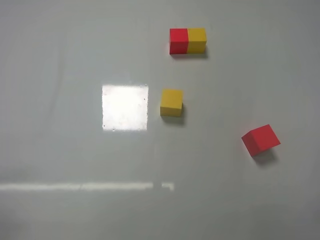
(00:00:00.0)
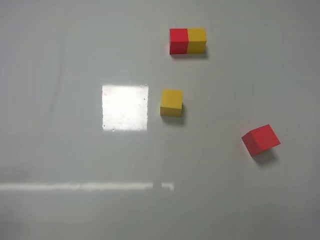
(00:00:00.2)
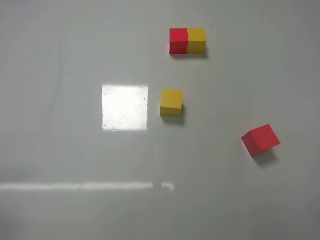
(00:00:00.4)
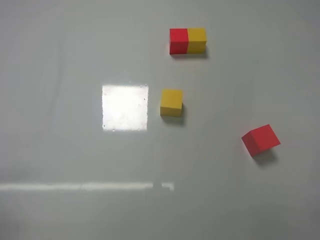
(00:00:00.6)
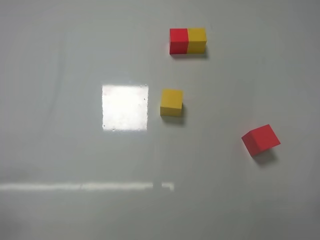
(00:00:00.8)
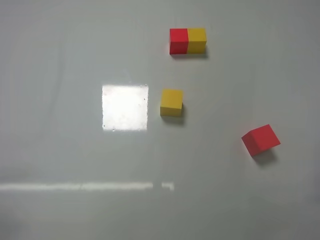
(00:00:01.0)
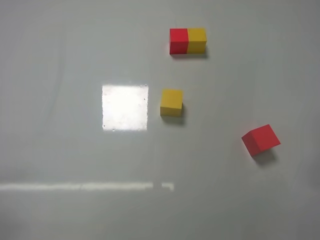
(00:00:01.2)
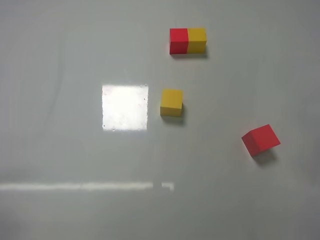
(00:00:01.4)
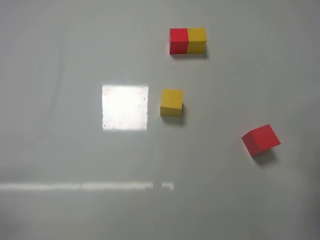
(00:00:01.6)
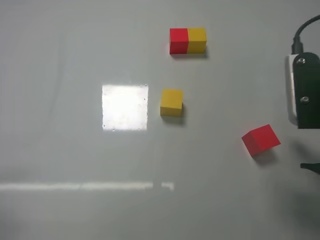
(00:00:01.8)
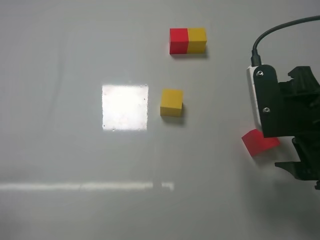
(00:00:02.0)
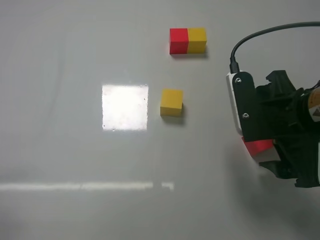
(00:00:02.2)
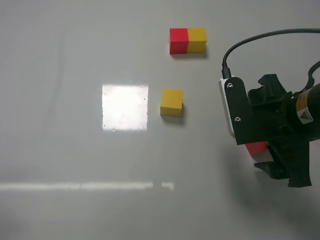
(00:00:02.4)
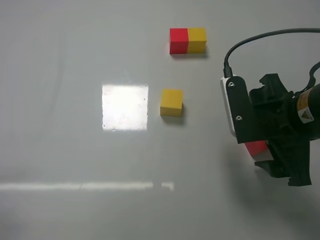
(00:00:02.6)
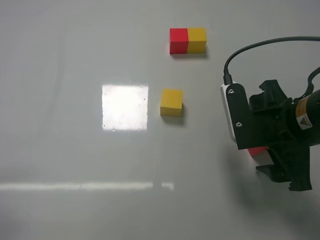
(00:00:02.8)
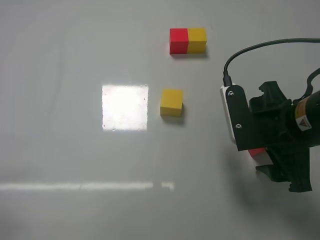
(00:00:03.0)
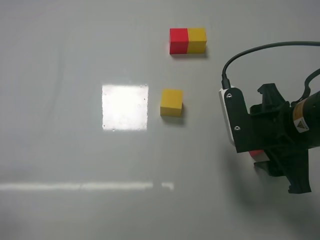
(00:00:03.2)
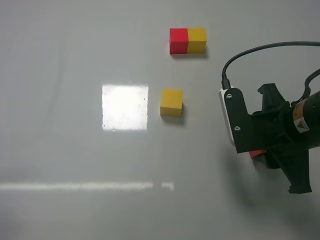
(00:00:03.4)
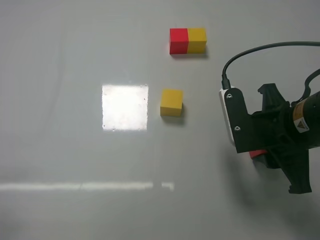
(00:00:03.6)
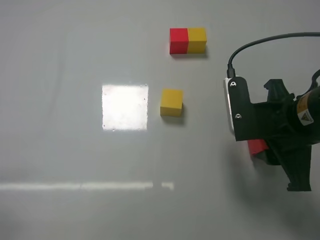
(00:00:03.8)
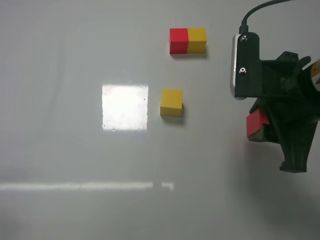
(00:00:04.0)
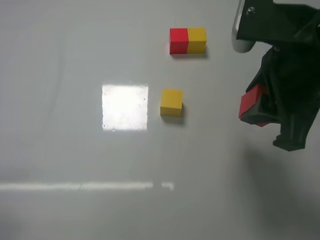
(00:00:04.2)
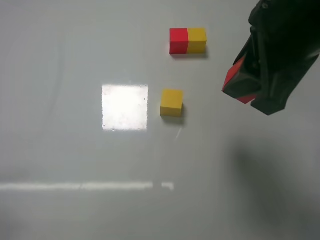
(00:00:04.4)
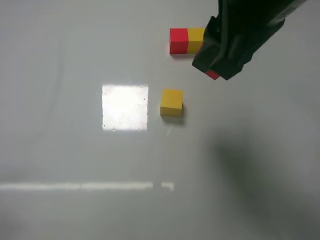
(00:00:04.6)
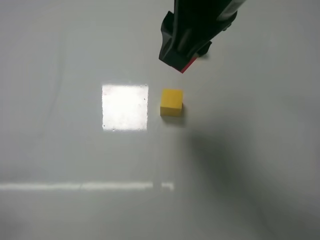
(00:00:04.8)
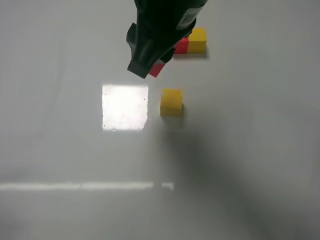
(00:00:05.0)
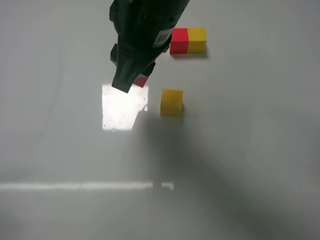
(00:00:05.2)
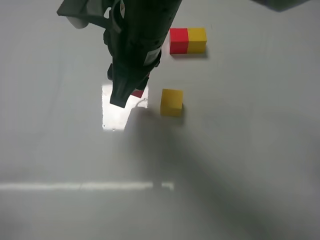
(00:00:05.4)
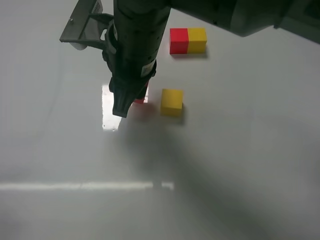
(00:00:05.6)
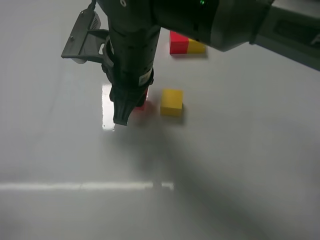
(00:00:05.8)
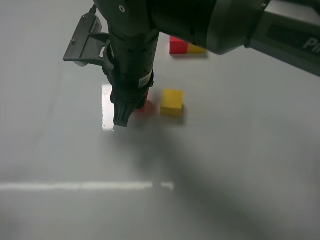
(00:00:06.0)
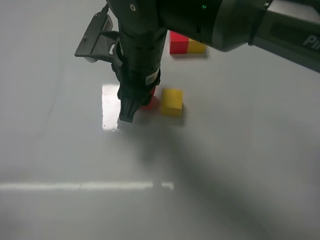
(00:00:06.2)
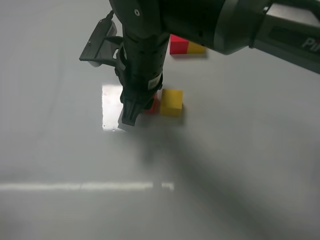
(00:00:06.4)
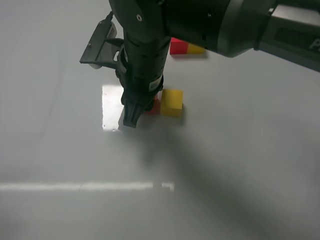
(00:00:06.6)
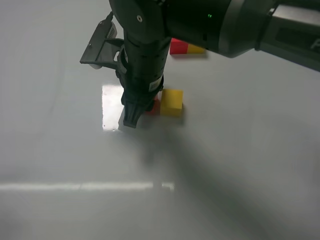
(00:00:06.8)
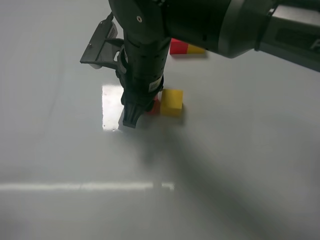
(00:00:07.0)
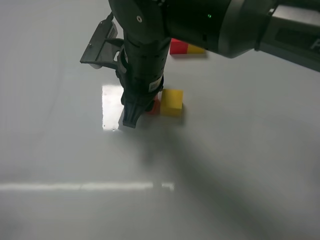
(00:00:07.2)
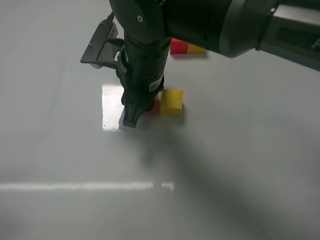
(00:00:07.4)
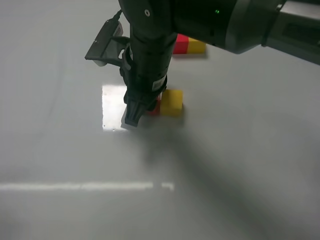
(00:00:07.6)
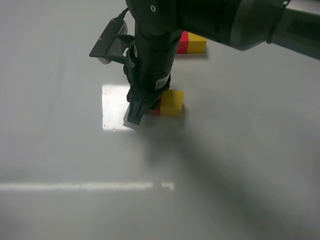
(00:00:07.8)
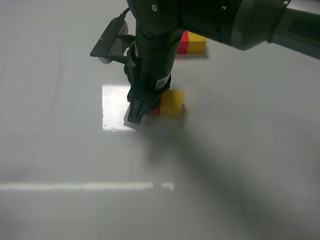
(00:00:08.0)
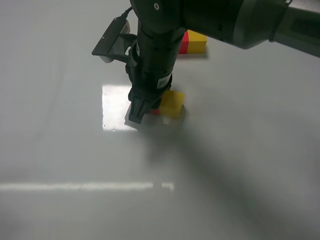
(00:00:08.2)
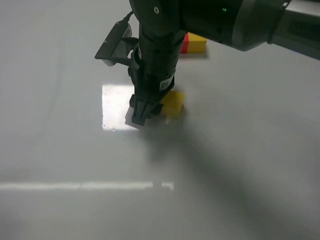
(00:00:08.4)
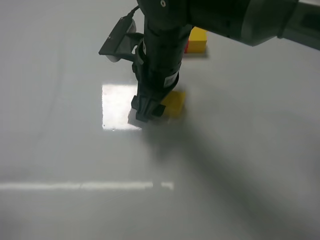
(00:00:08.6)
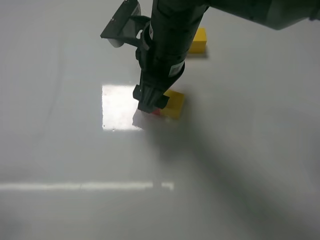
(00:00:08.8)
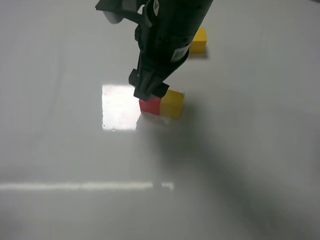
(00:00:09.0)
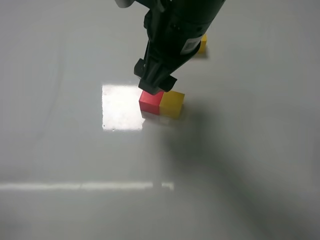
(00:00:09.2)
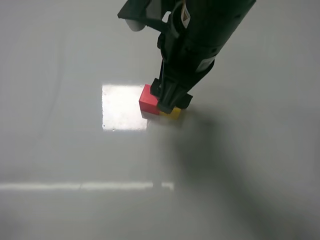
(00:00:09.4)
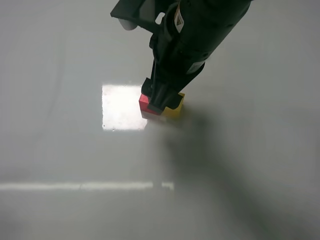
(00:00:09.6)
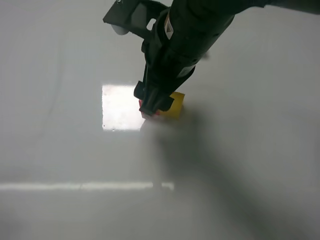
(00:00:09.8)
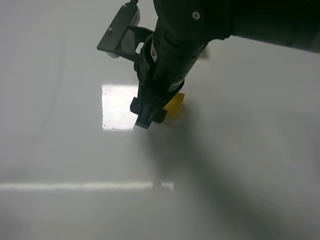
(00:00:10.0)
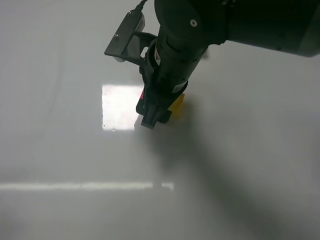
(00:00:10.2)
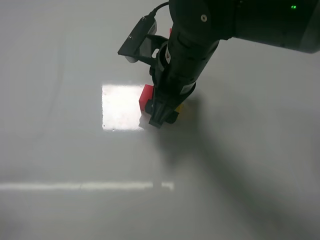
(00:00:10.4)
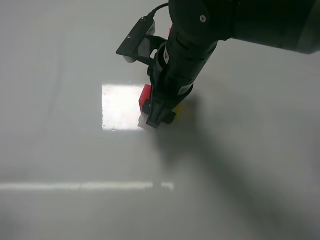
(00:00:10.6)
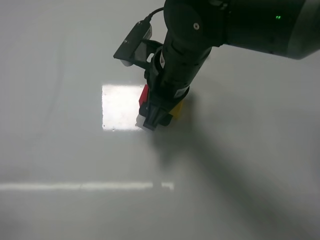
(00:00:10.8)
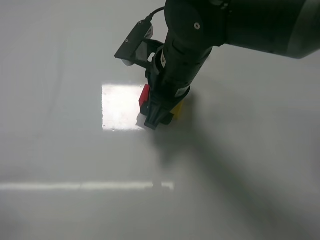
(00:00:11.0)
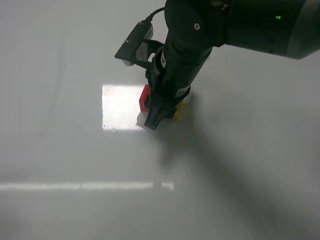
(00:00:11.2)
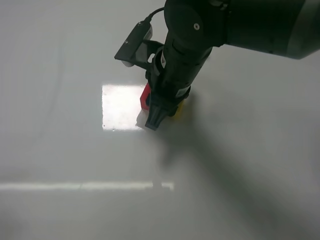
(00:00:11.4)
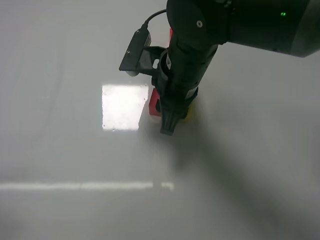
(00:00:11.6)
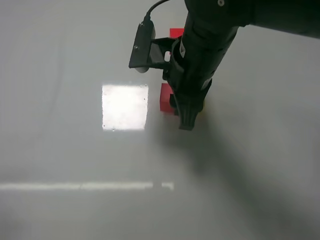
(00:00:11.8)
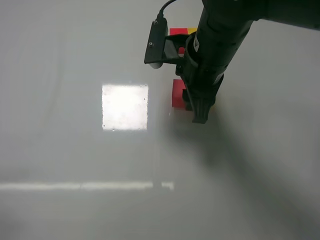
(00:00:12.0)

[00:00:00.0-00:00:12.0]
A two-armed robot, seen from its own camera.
Task of the whole recording: According to the building block template in front, assemble the scattered blocks together.
Step, 00:00:00.0 to 00:00:03.4: Grasp the red block with right gripper.
Step, 00:00:03.6 to 00:00:08.4: Put the red cube on the left of the yellow cube with the right gripper.
00:00:01.6 to 00:00:03.0: The right gripper is displaced to the left and forward by some 10 cm.
00:00:03.0 to 00:00:04.4: The right gripper travels upward by roughly 15 cm, and closes up.
00:00:04.4 to 00:00:06.0: The right gripper is displaced to the left, forward and downward by approximately 20 cm.
00:00:06.0 to 00:00:07.6: The grippers make only small movements.
00:00:07.6 to 00:00:09.0: The right gripper moves upward, some 5 cm, and opens its fingers.
00:00:09.0 to 00:00:10.4: The right gripper heads downward, covering about 5 cm.
00:00:10.4 to 00:00:12.0: The right gripper closes its fingers.

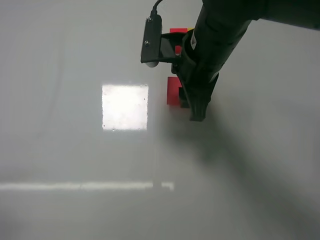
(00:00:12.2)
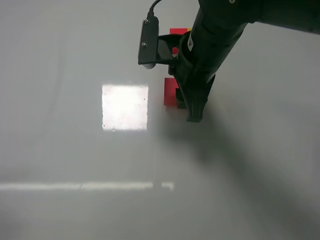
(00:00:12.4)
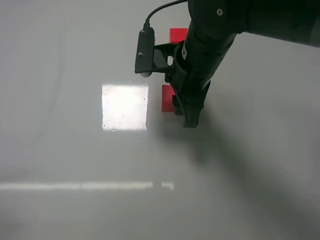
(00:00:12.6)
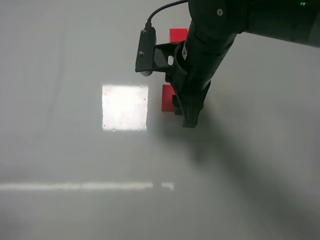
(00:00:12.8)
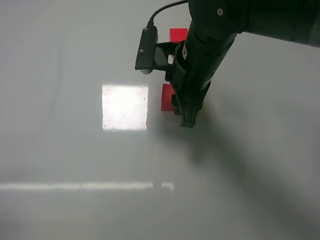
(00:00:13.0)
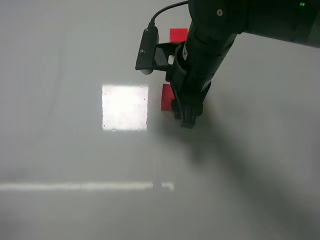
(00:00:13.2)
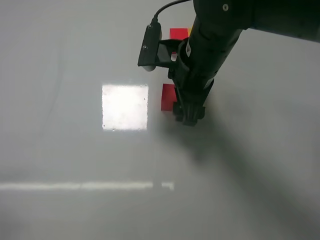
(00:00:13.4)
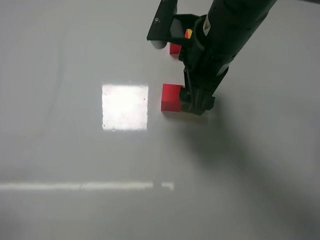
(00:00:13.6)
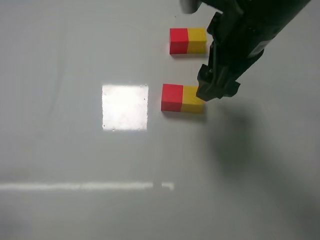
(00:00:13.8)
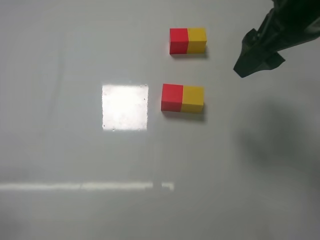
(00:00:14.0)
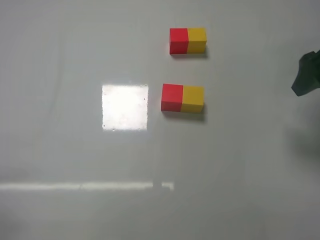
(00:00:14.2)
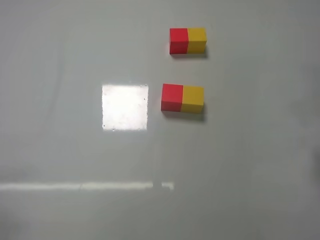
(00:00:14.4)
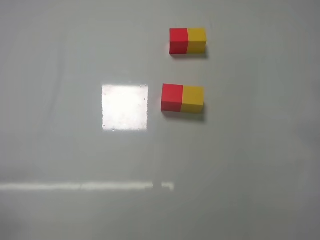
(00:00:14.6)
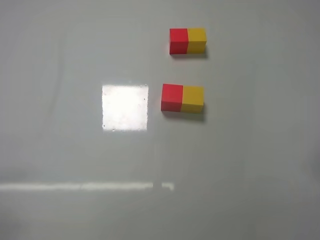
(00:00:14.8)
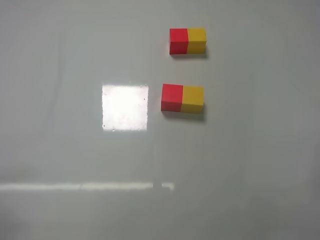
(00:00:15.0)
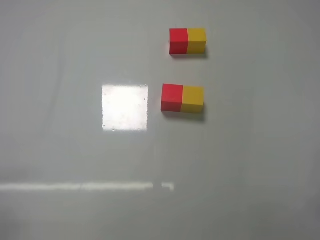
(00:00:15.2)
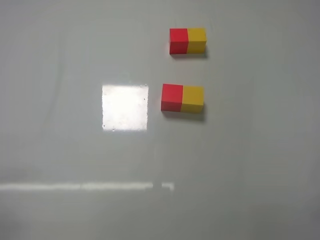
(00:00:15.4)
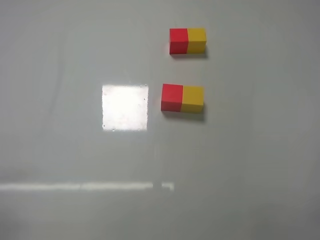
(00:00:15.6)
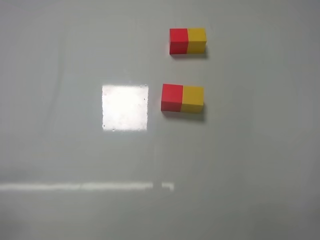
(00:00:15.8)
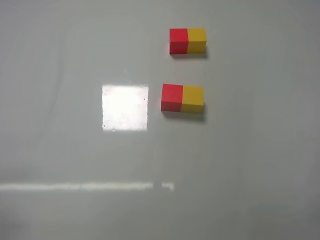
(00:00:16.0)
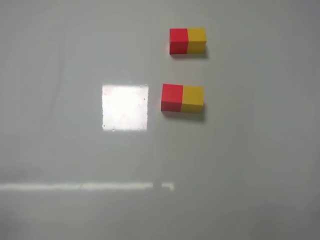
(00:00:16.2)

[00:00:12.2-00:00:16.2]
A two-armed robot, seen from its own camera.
Task of the whole recording: According to the building block template in front, assemble the scattered blocks together.
00:00:12.2 to 00:00:13.6: The right gripper opens.
00:00:13.6 to 00:00:14.8: The right gripper moves to the right and backward, approximately 30 cm.
